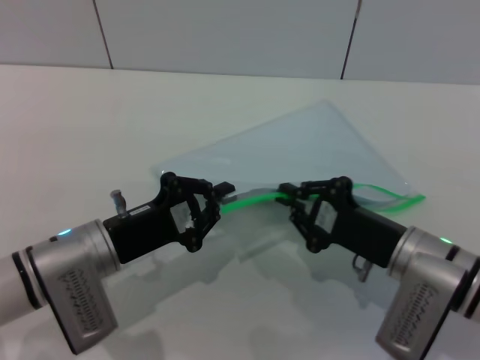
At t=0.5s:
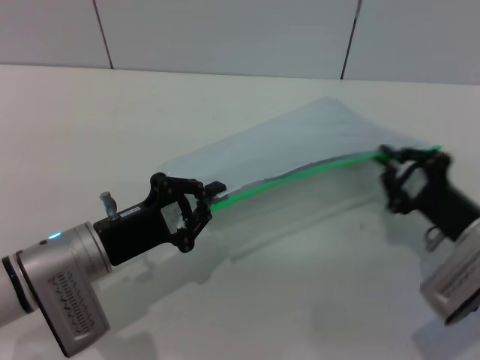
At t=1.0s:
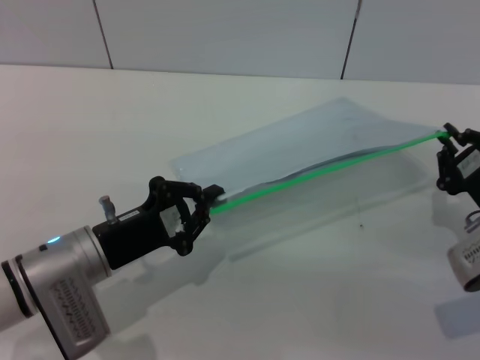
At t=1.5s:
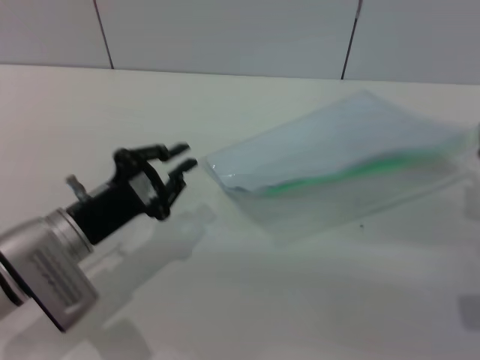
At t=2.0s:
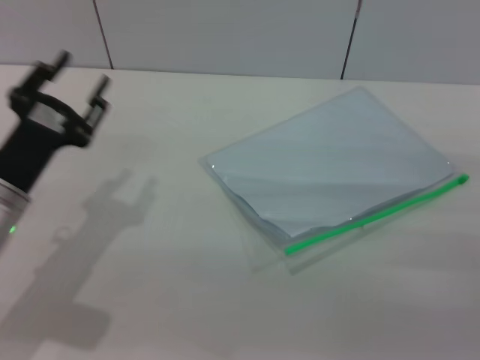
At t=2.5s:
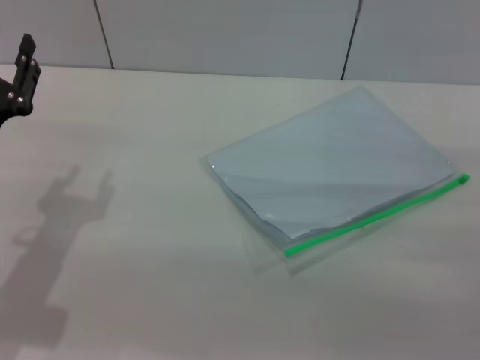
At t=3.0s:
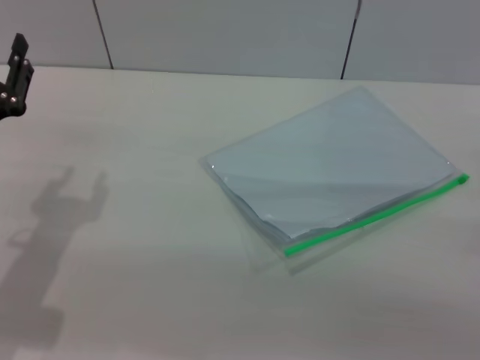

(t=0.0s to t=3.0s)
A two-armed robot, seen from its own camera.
t=0.0s - t=1.5s: The right gripper goes some 10 cm to the right.
t=1.5s - t=3.0s: The left gripper travels to the left by some 5 cm, and opens up. The right gripper shifts roughly 10 cm to the right, and opens its fingers.

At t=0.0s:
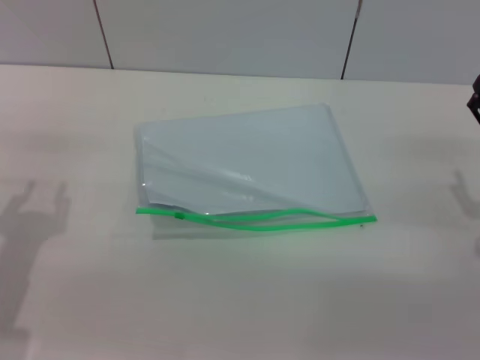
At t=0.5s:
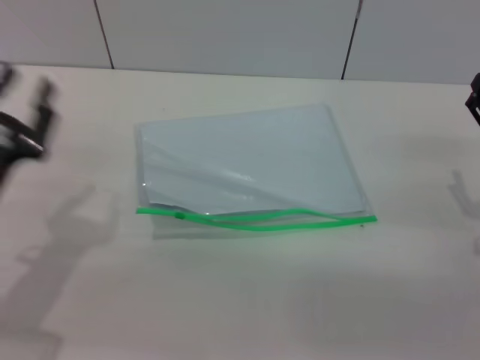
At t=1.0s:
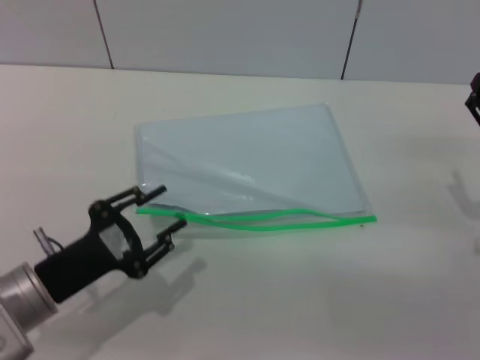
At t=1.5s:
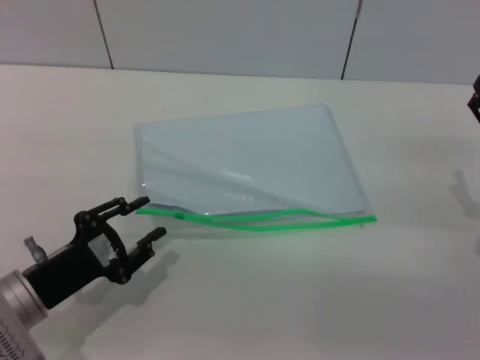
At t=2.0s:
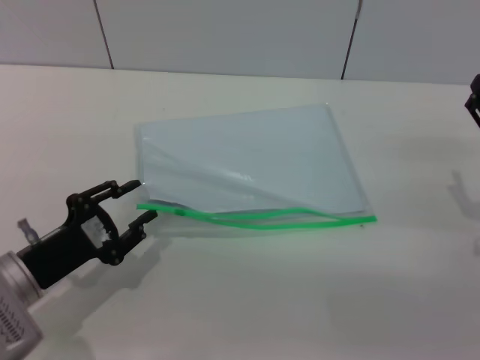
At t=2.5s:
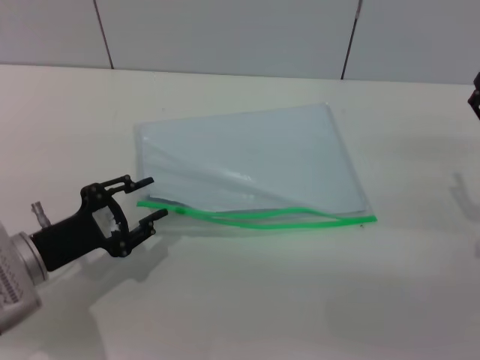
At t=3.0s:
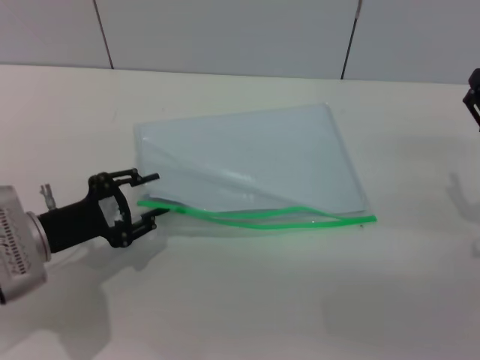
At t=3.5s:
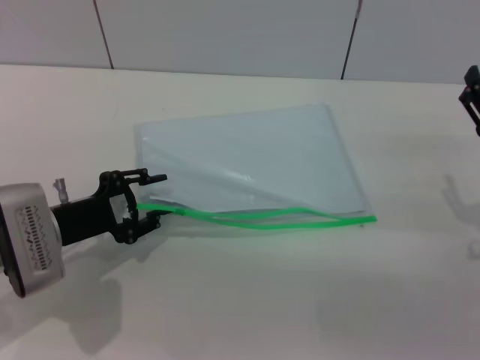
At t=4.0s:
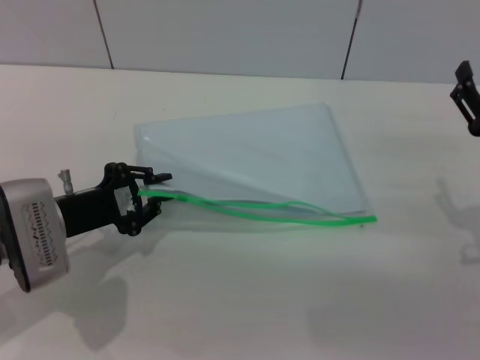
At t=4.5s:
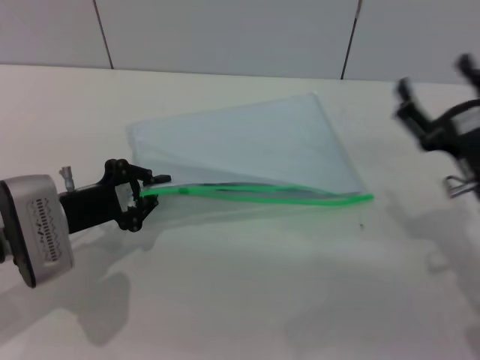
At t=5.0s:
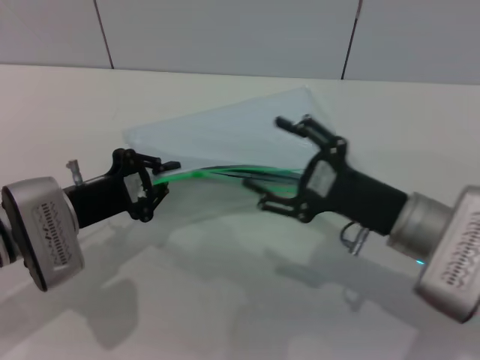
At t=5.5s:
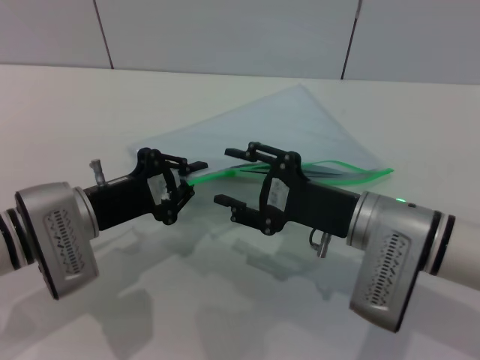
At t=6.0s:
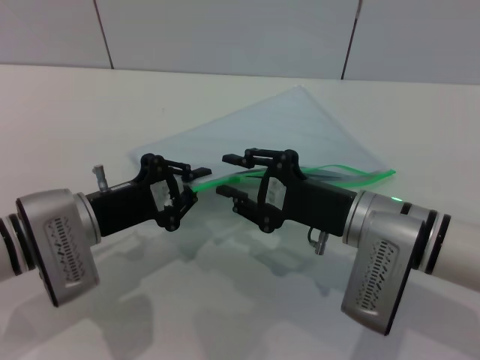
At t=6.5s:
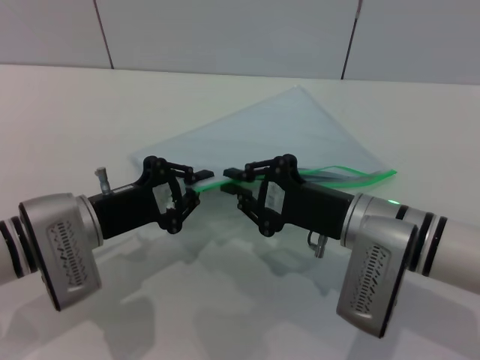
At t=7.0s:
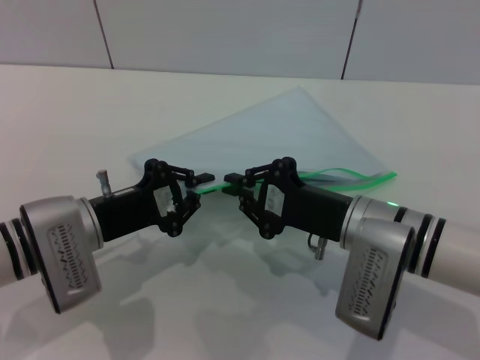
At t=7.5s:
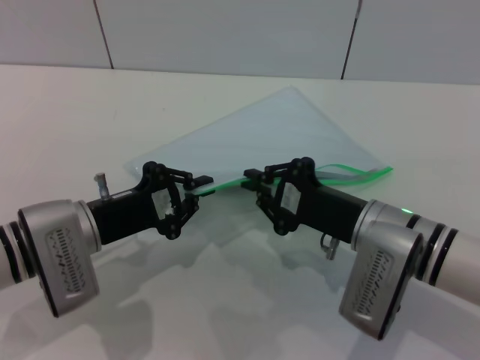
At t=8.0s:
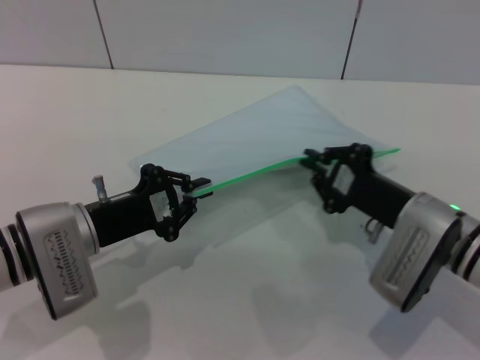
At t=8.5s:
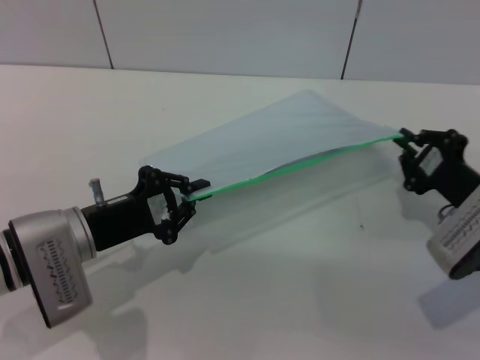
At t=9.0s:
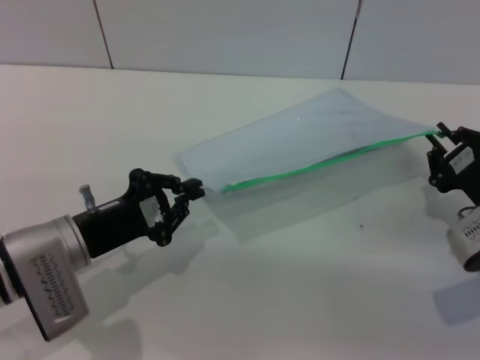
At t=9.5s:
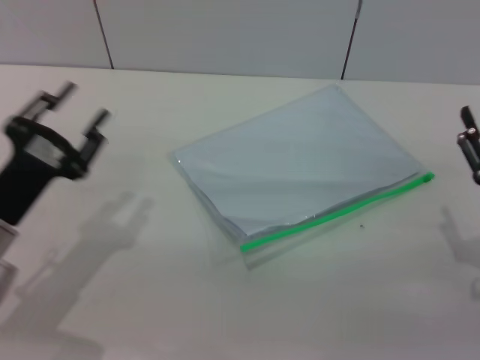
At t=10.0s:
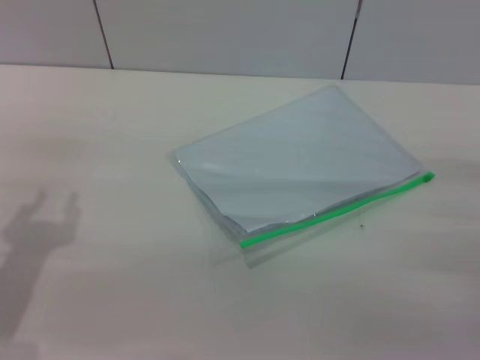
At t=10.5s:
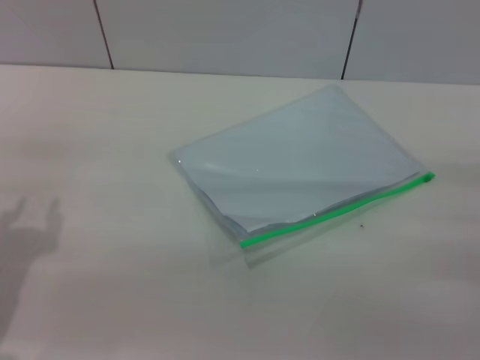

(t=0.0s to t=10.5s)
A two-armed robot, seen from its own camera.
Step, t=0.0s - t=4.5s: Pick up the transparent plastic bag with the left gripper.
Step, t=5.0s - t=8.5s: Pulling up the zipper on the transparent plastic bag with the right gripper to close it.
t=0.0s - t=2.0s: The left gripper moves downward, some 5 cm.
t=2.0s - t=4.0s: The left gripper heads forward, covering approximately 5 cm.
t=4.0s - t=6.5s: The right gripper travels to the left by roughly 15 cm, and closes up, while the left gripper closes.
t=6.5s - t=8.5s: The right gripper is displaced to the right by some 10 cm.
t=8.5s - t=10.5s: The left gripper travels to the left and backward by approximately 10 cm, and opens its fingers; the right gripper travels backward and to the right by approximately 10 cm, and opens.
